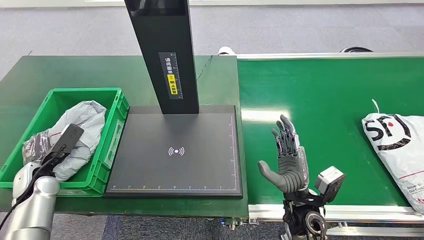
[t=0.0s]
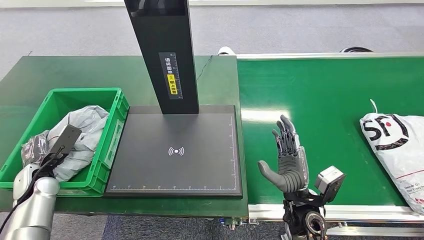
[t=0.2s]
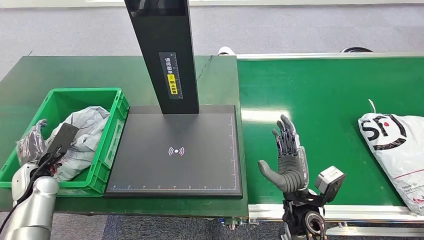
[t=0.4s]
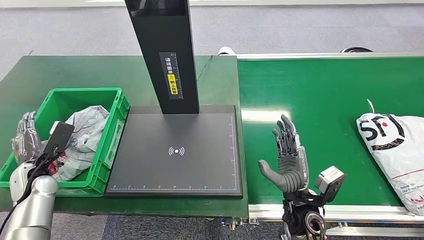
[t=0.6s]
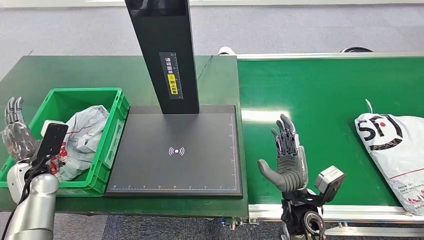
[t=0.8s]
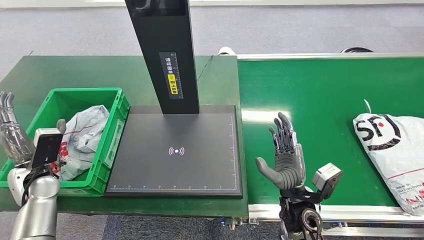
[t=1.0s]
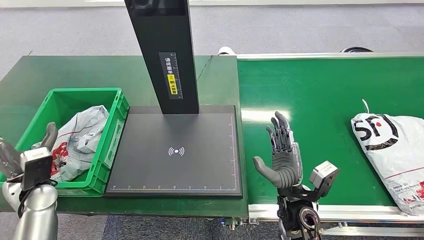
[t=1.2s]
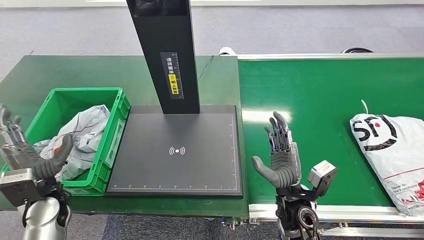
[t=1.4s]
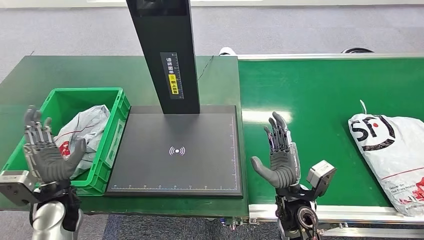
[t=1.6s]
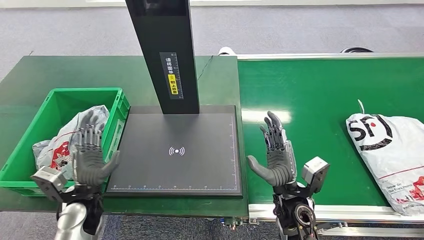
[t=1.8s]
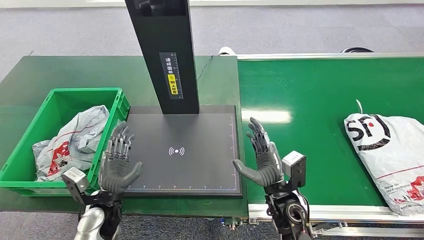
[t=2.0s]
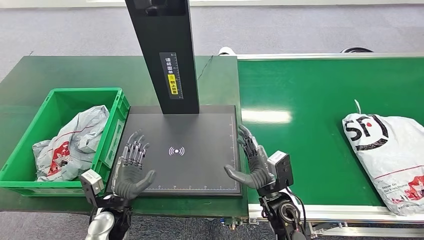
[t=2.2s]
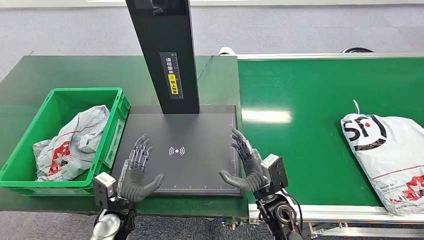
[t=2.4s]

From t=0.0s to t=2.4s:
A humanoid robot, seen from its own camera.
Step, from t=0.0s to t=2.4s: Place the package into the parcel locker.
From t=0.0s to t=1.2s: The left hand ends up roughly 5 cm from where it was.
From t=1.2s to t=2.4s: The left hand shifts some 20 cm to the right and downward.
